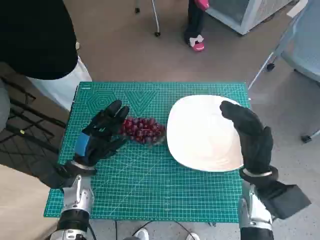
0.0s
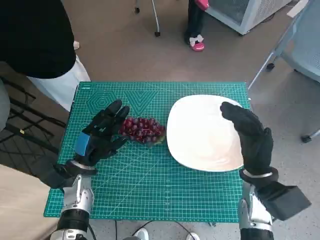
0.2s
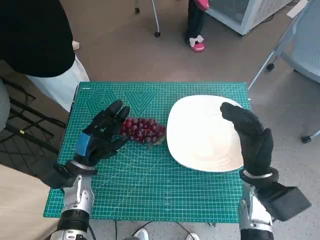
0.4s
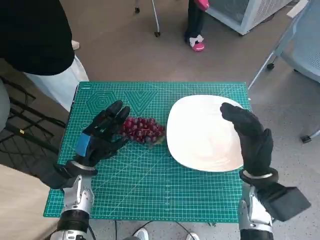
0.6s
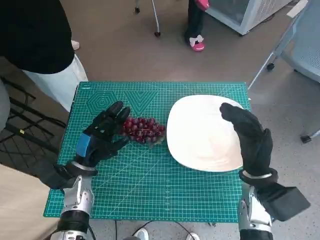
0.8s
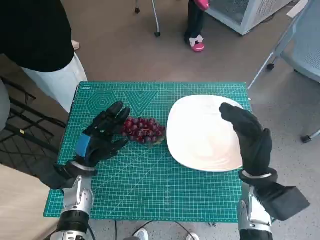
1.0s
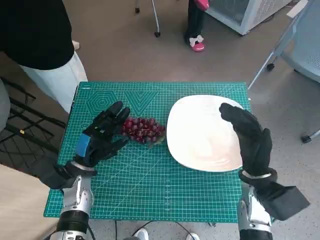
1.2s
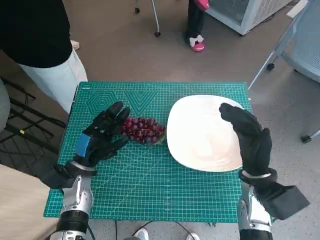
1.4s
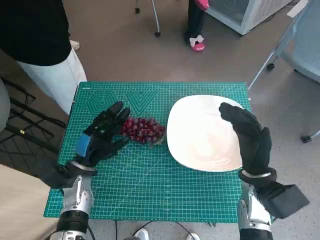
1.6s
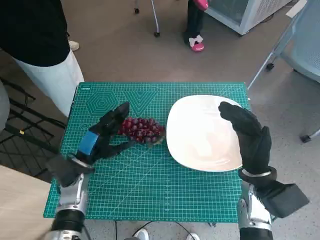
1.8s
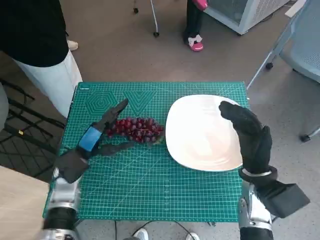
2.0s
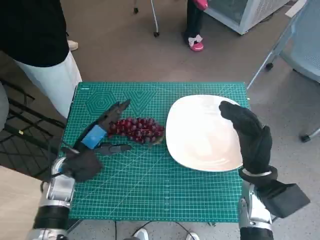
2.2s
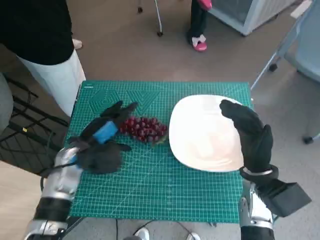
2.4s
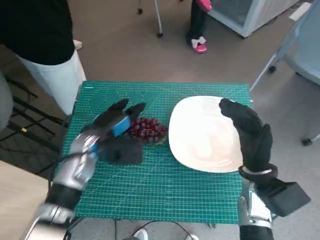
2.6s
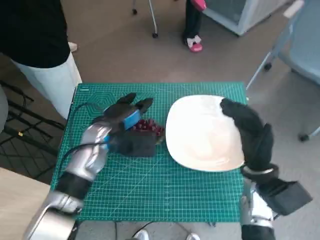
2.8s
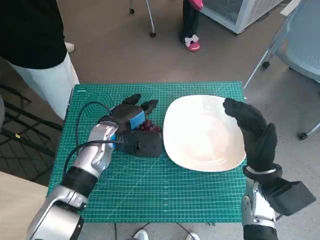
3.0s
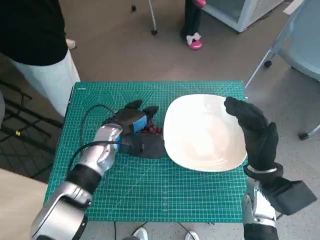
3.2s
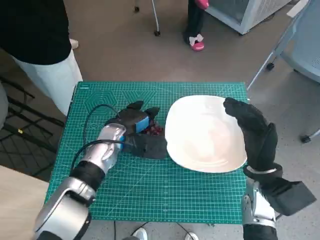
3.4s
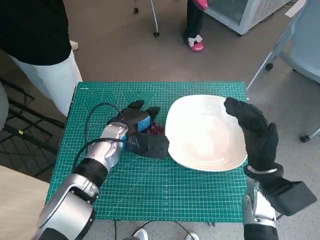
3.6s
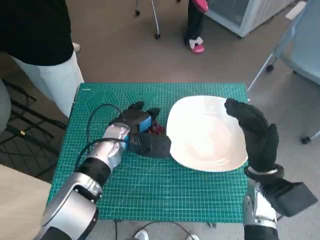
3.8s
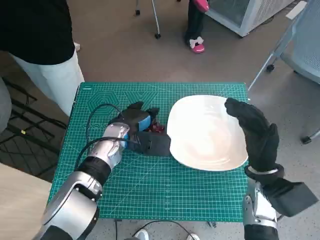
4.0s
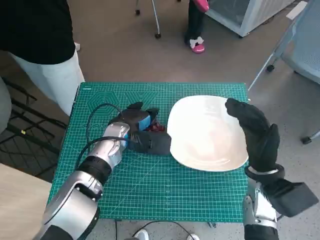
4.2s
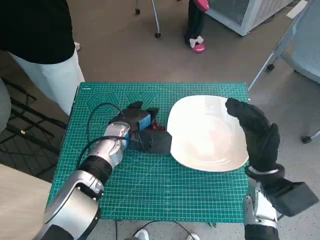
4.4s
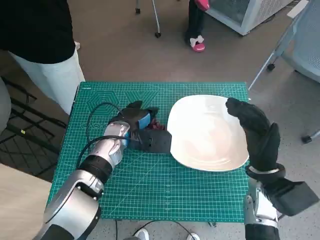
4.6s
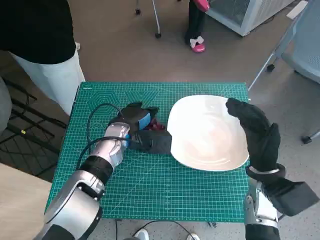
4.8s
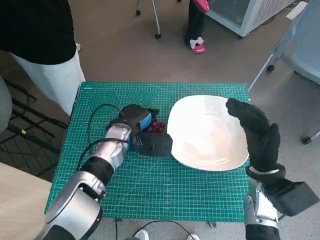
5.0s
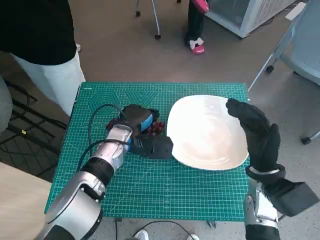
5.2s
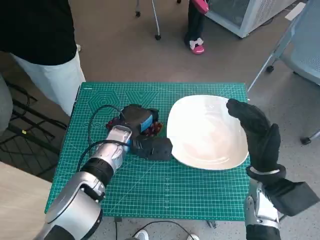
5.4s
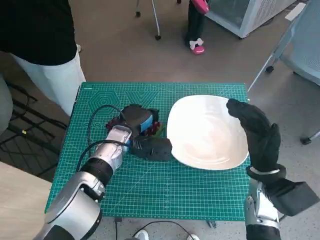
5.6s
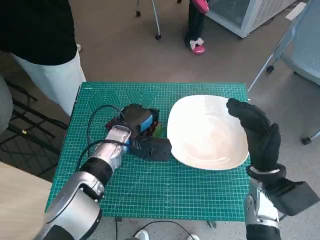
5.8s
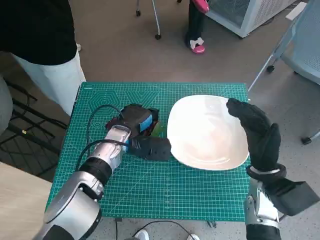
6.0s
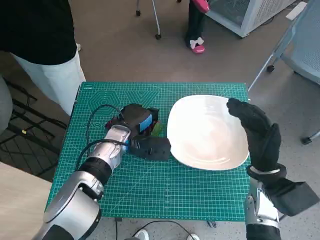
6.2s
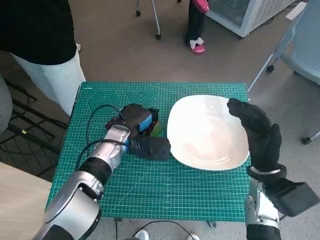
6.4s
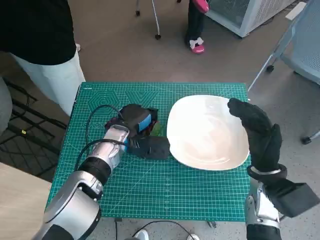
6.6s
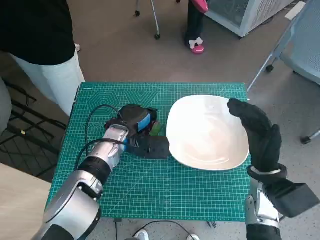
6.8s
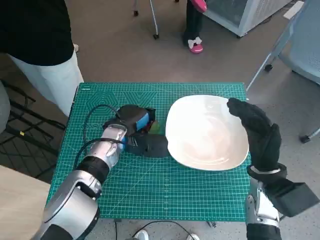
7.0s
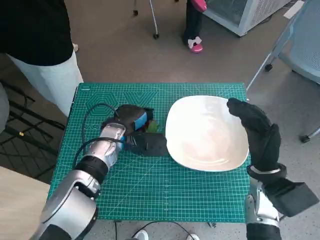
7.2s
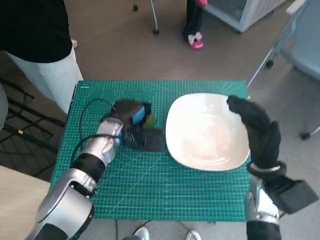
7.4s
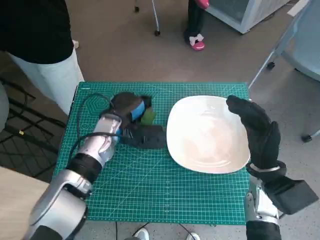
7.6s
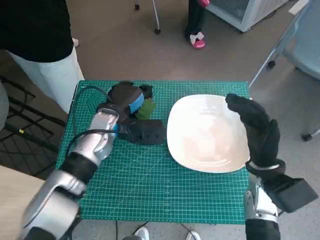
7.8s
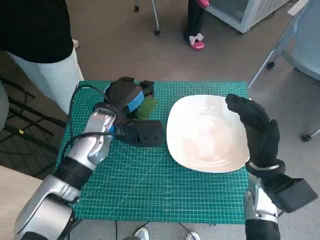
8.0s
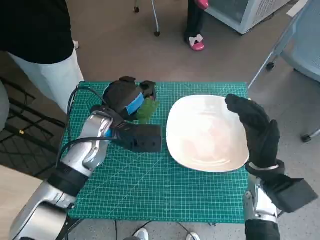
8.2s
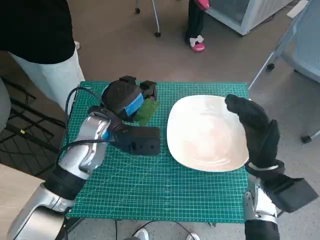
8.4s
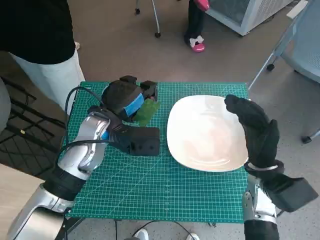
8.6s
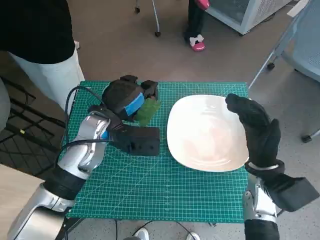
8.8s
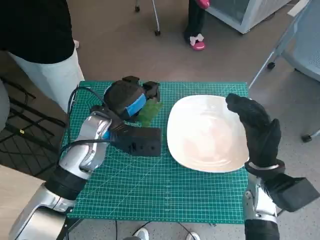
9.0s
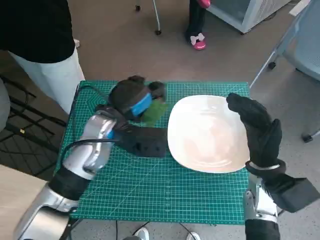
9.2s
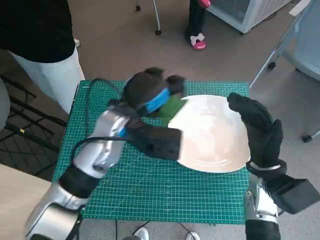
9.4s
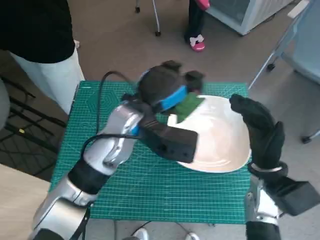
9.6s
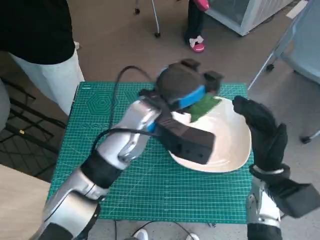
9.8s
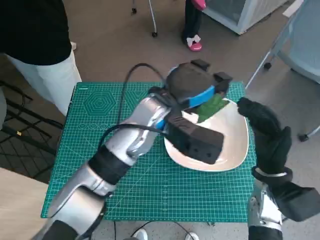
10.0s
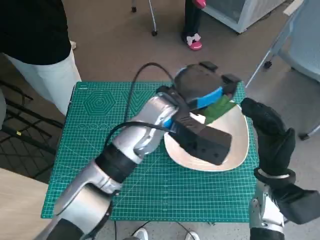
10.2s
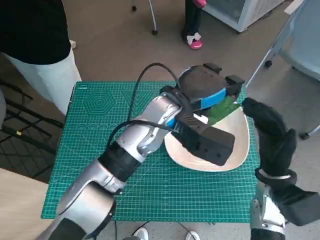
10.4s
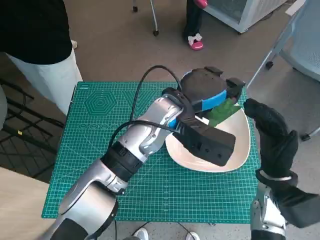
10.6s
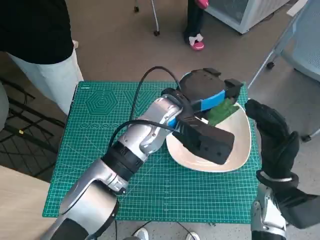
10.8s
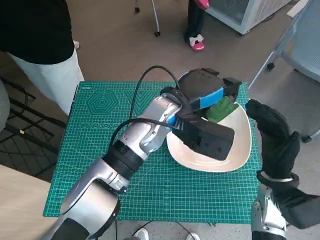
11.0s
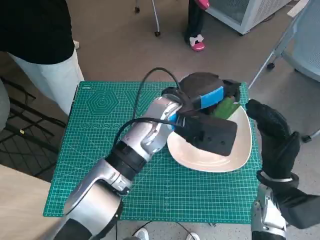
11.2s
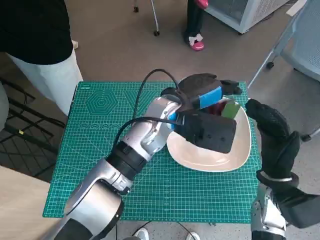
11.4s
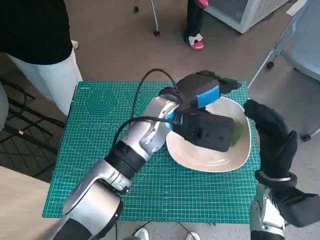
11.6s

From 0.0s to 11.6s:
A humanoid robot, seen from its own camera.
Task of the whole recording: Pick up the grapes and put them on the plate.
Step, from 0.0s to 6.4s: Grasp the grapes with left hand.
Step, from 6.6s to 11.4s: Place the grapes in the plate with left hand.
From 1.4s to 2.8s: The left hand goes some 10 cm upward, to the right and forward.
From 2.8s to 4.4s: The left hand ends up approximately 5 cm from where it was.
From 4.4s to 5.8s: The hands stay close to where they were, moving slightly.
From 5.8s to 7.2s: Neither hand changes place.
From 7.2s to 8.8s: The left hand is displaced upward by roughly 10 cm.
From 8.8s to 10.2s: The left hand travels to the right by roughly 10 cm.

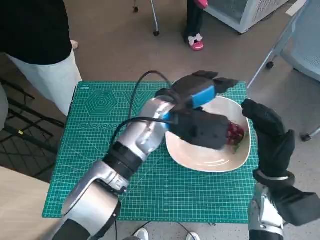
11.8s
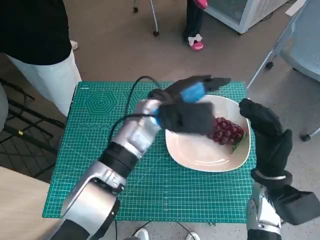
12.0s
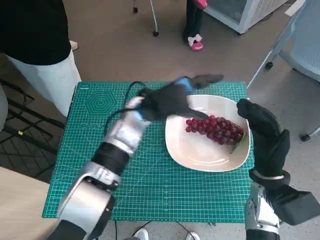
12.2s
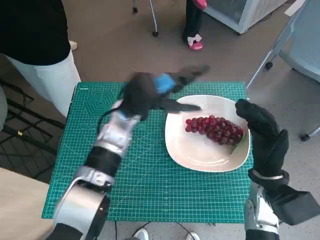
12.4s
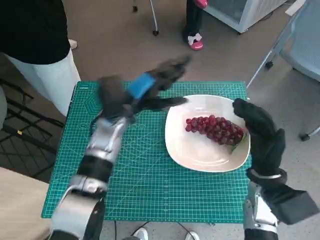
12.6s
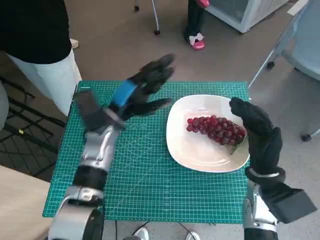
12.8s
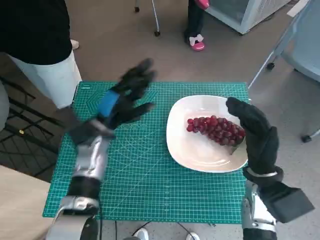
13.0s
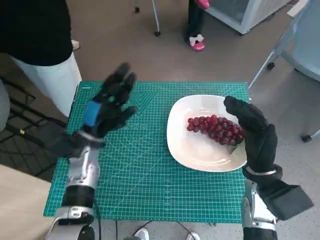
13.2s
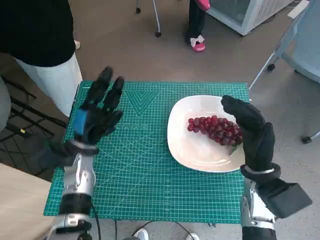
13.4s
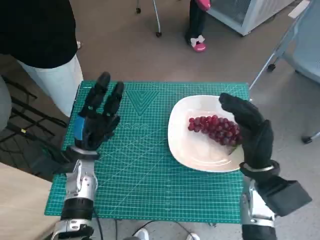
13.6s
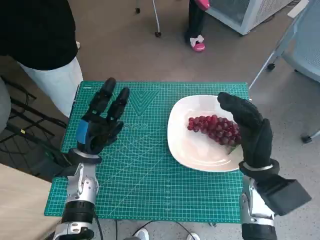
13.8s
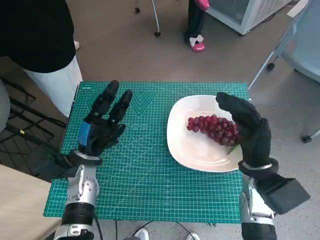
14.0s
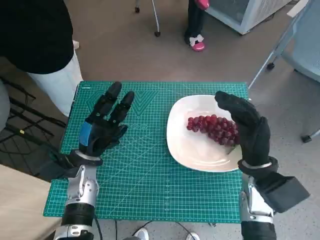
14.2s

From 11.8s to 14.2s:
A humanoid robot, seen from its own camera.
Task of the whole recording: Pick up the grapes and put them on the plate.
From 11.8s to 13.0s: The left hand shifts about 15 cm to the left and downward.
From 13.0s to 14.2s: The left hand is displaced downward and backward by roughly 10 cm.

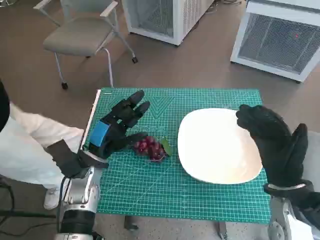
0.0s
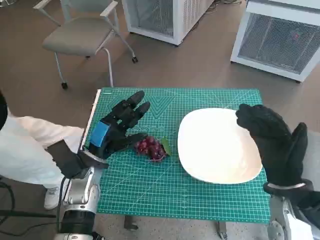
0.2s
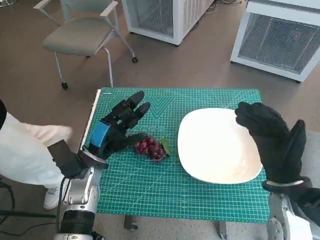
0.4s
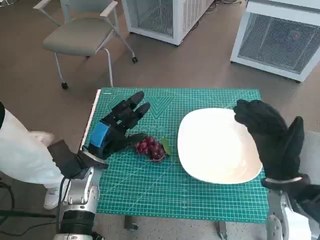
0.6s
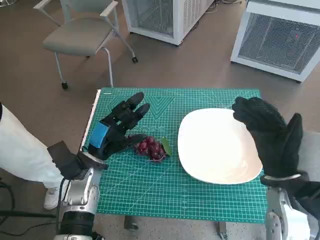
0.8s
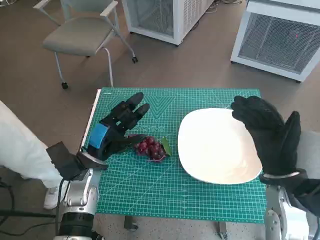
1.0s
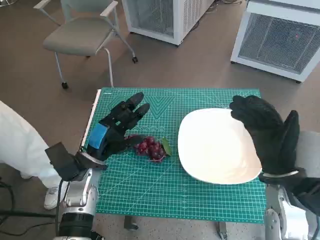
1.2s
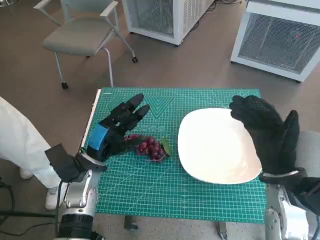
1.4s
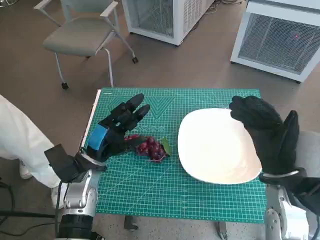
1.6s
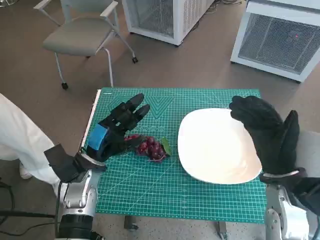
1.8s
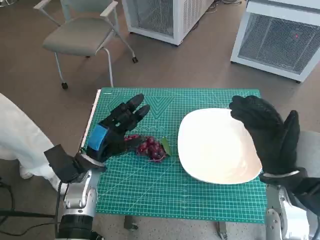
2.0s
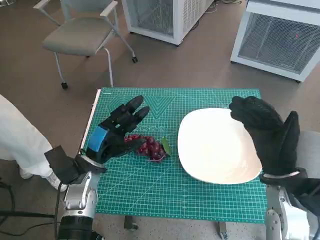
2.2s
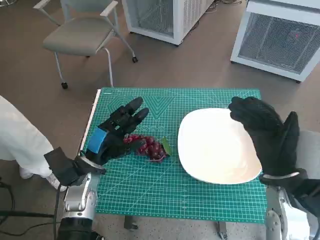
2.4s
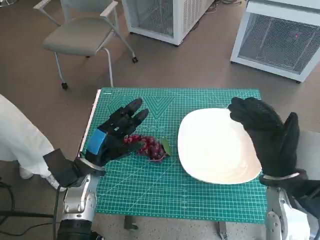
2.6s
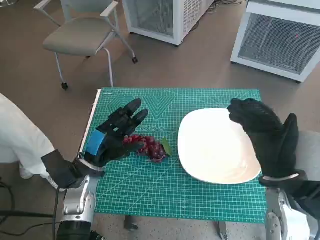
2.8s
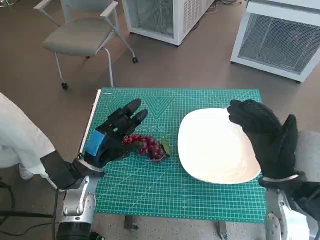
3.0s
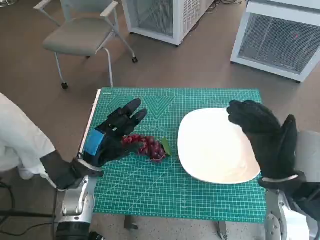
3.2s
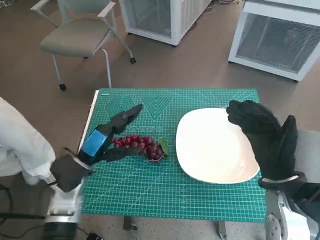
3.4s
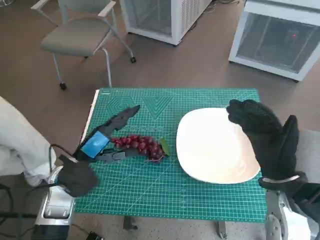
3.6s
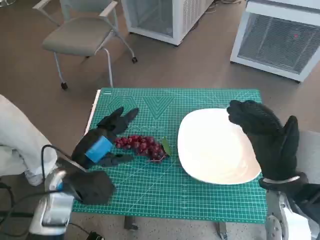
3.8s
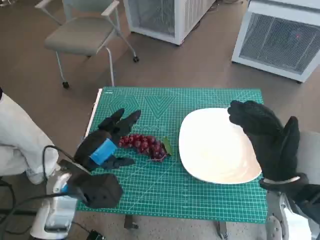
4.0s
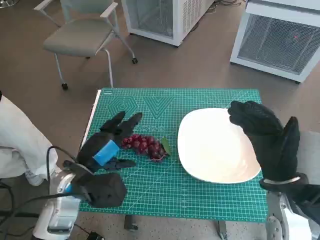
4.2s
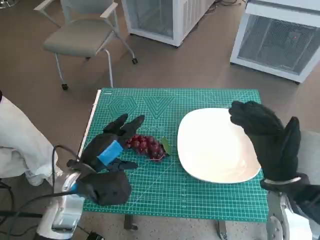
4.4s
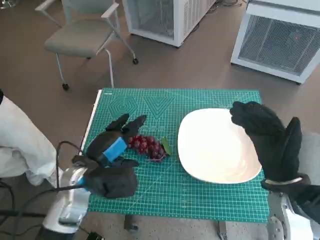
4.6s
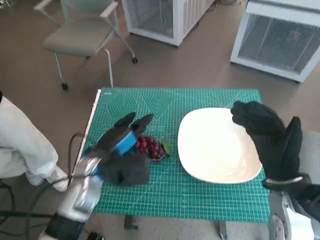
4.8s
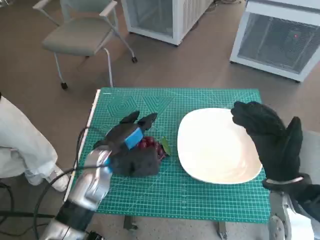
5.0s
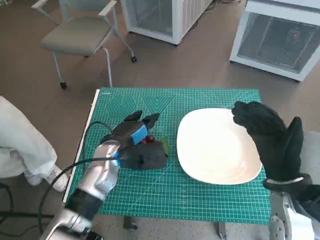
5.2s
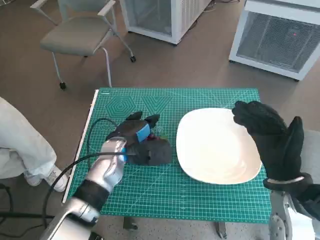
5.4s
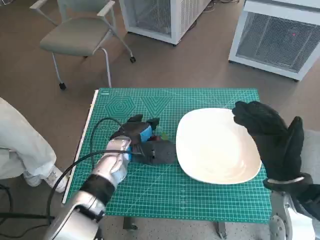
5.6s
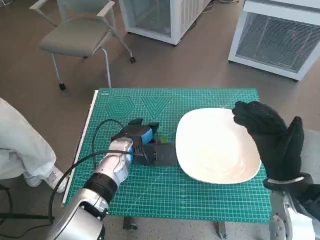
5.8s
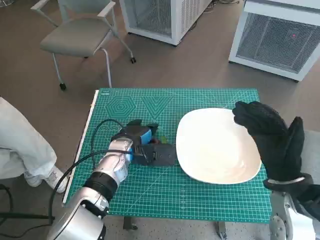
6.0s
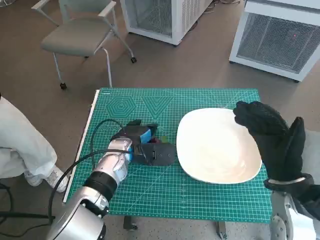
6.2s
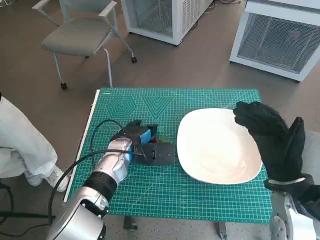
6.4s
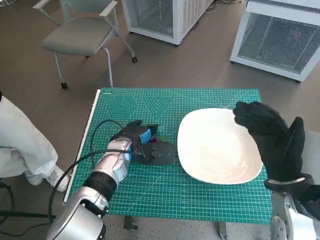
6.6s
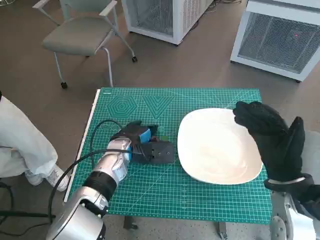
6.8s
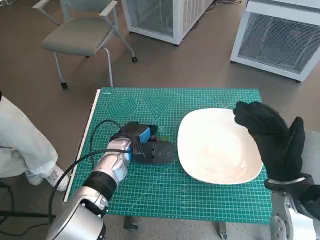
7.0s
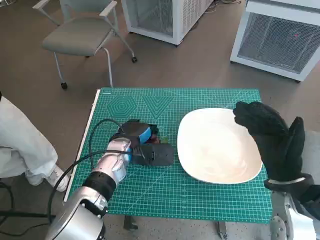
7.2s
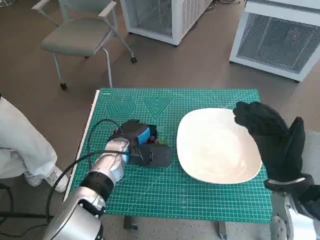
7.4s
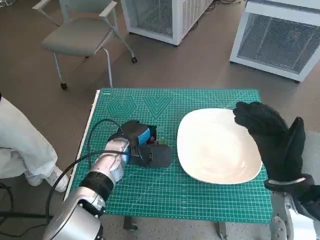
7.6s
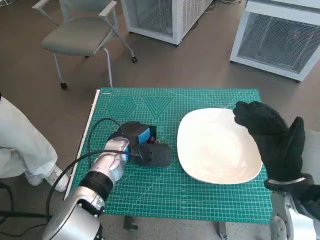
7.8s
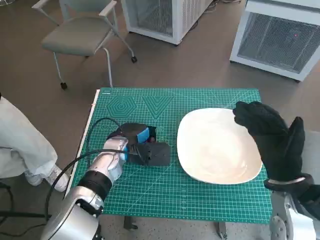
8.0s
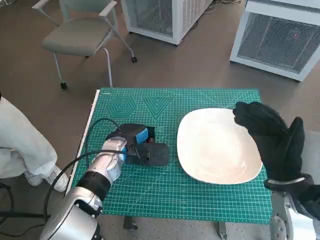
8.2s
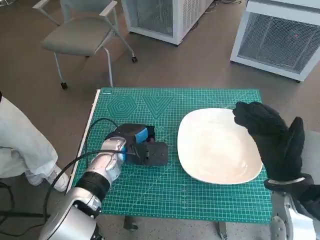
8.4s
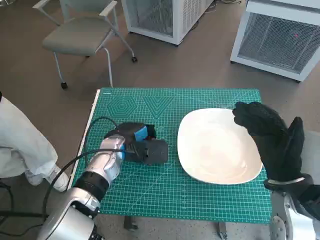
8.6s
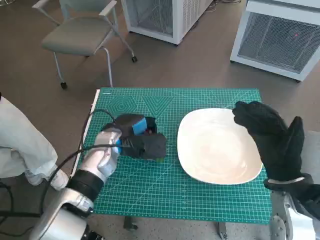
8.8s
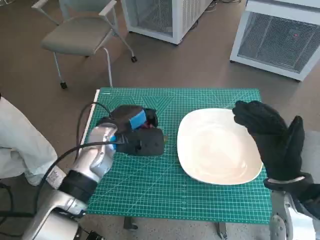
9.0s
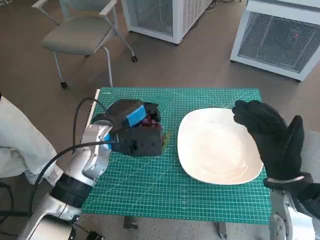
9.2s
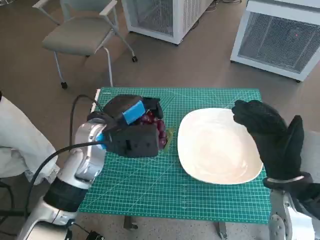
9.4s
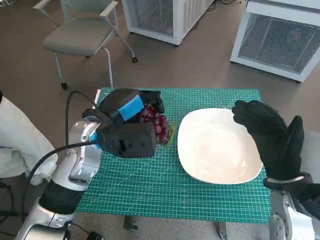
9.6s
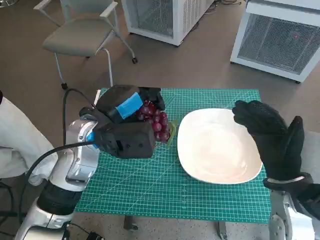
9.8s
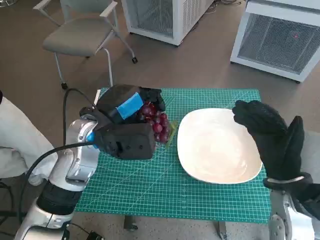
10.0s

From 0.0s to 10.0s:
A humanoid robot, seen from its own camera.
Task of the whole recording: Pick up the grapes and put them on the plate.
Step, from 0.0s to 7.2s: Grasp the grapes with left hand.
From 1.4s to 2.8s: The two hands keep their place.
From 2.8s to 4.2s: The left hand moves roughly 5 cm.
From 4.2s to 5.8s: The left hand moves forward and to the right, some 10 cm.
From 5.8s to 7.2s: The two hands keep their place.
From 7.2s to 8.6s: The hands move only a little.
From 8.6s to 10.0s: The left hand is displaced upward by roughly 10 cm.
